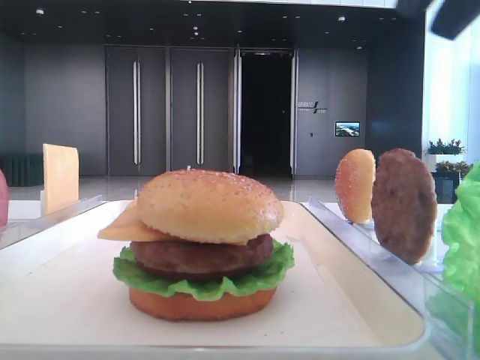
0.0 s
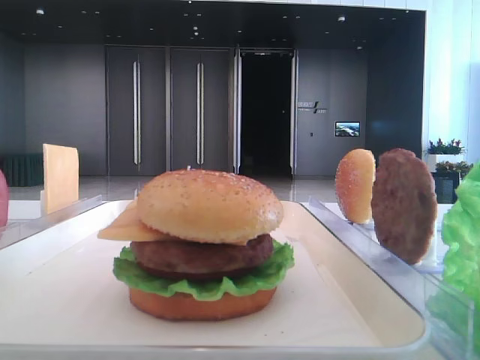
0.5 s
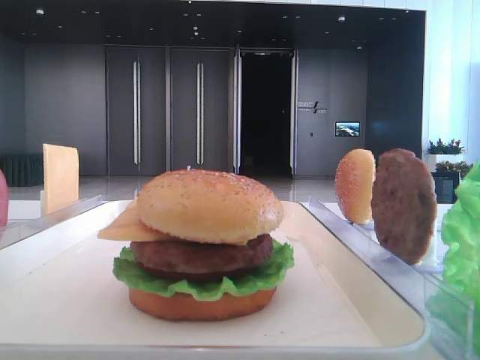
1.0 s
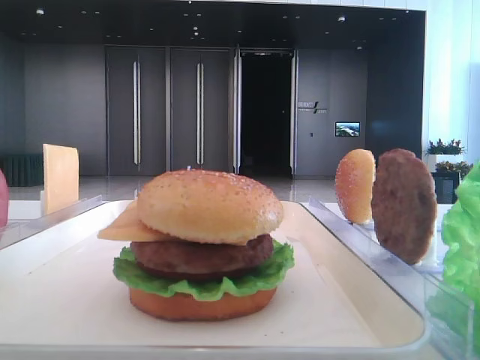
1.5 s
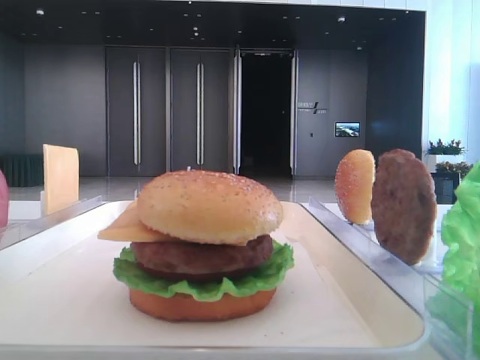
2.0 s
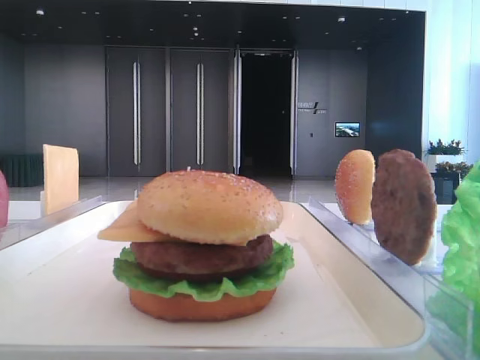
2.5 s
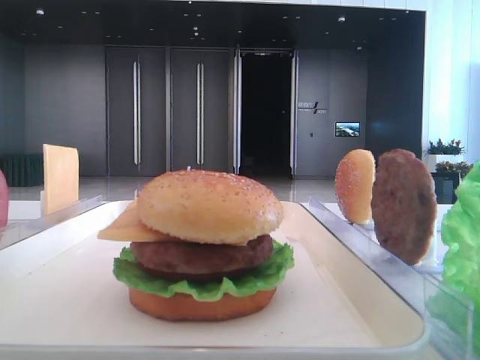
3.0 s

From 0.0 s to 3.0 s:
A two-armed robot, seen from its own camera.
From 0.0 s to 1.5 s: The right gripper moves to the right, backward and upward, about 15 cm.

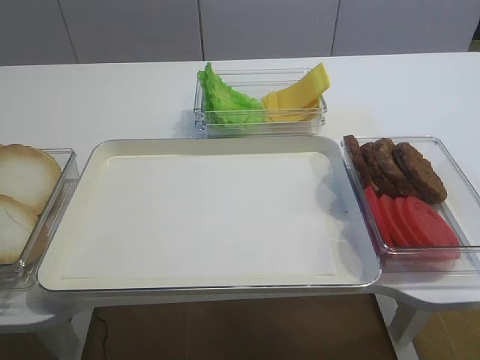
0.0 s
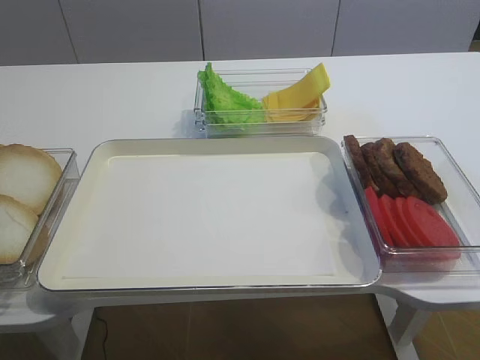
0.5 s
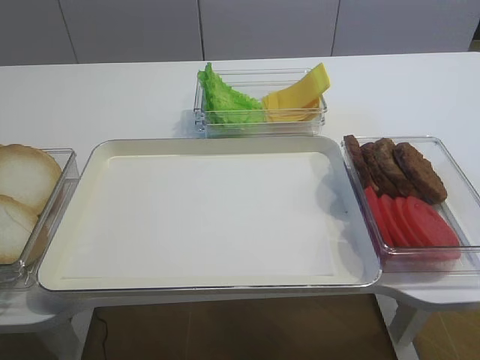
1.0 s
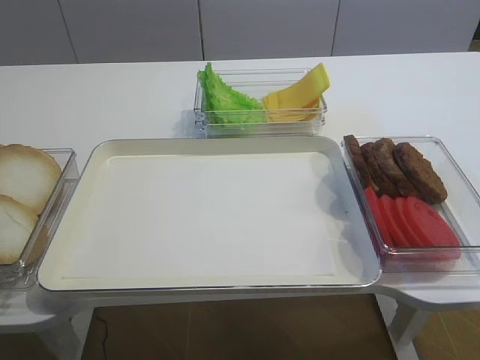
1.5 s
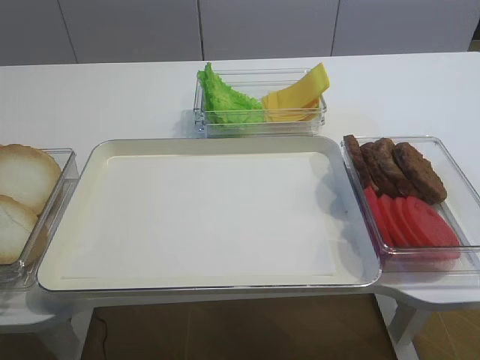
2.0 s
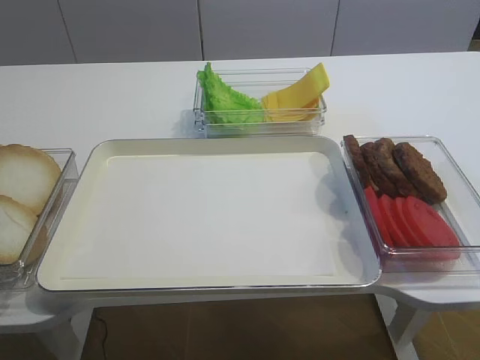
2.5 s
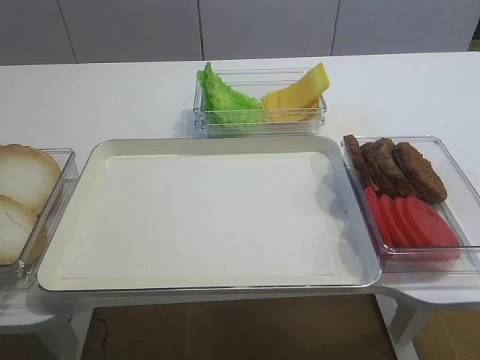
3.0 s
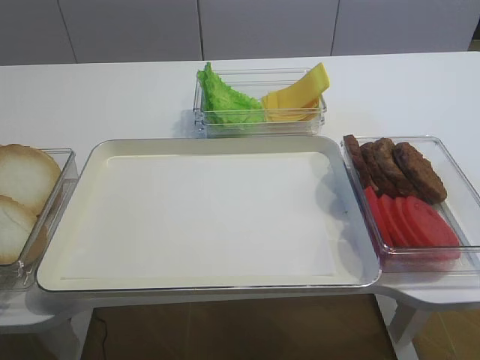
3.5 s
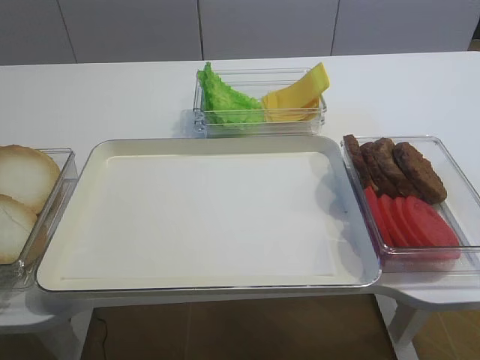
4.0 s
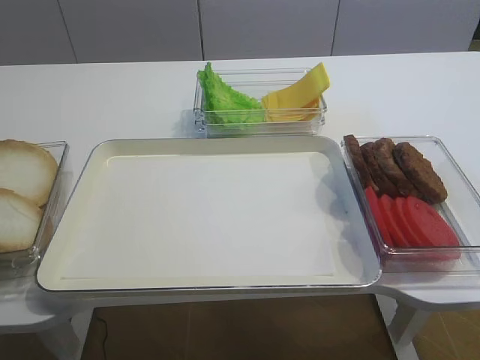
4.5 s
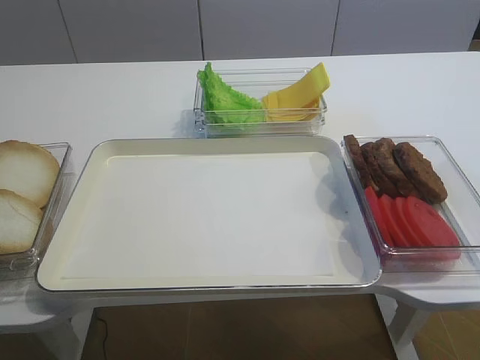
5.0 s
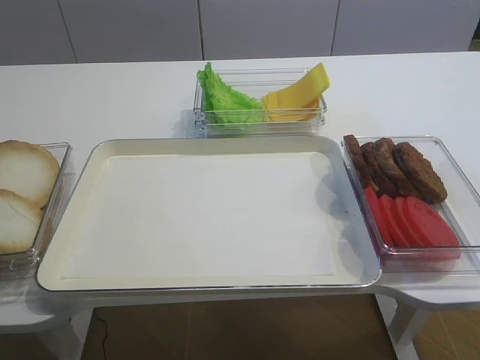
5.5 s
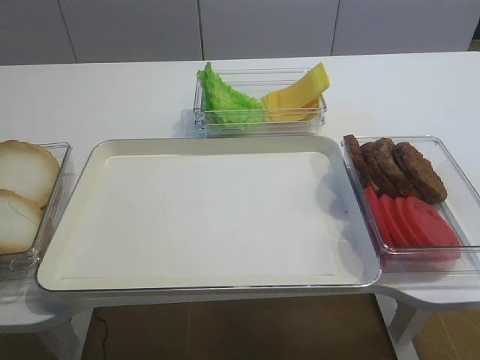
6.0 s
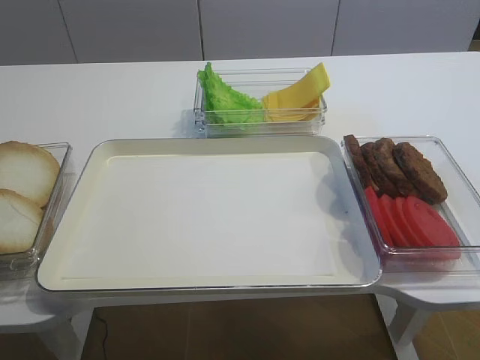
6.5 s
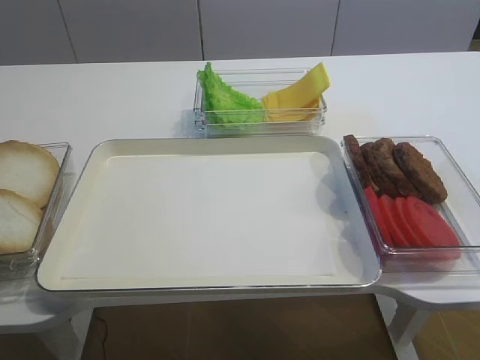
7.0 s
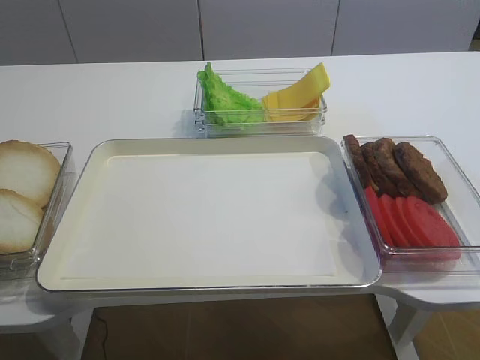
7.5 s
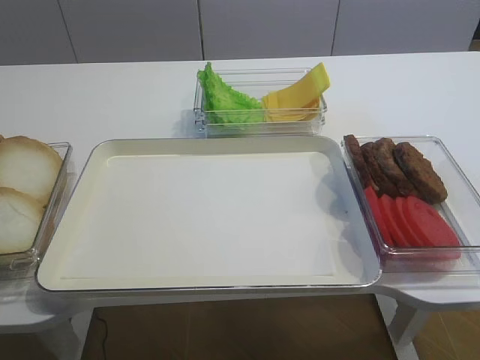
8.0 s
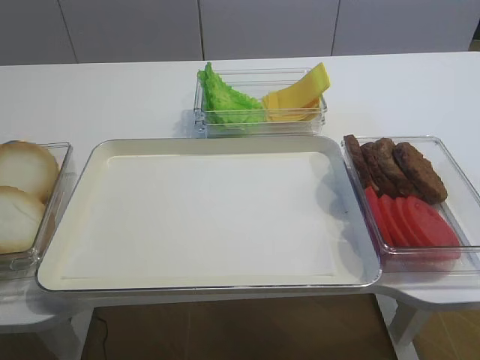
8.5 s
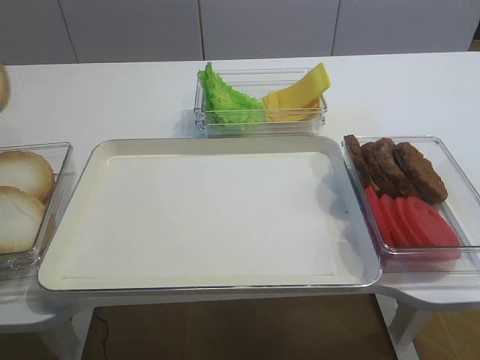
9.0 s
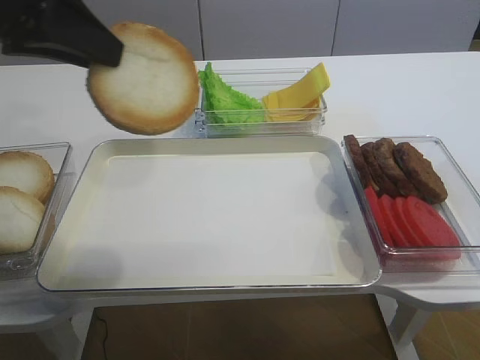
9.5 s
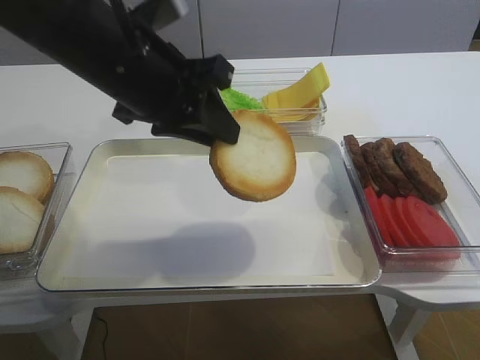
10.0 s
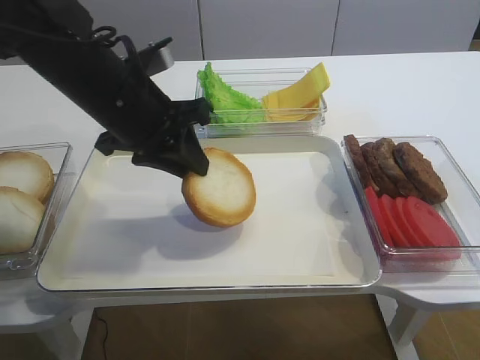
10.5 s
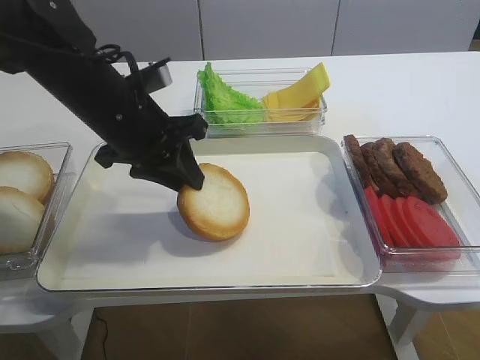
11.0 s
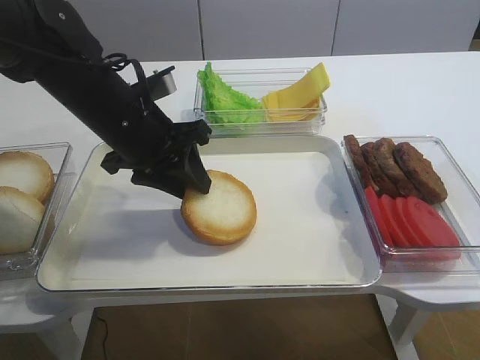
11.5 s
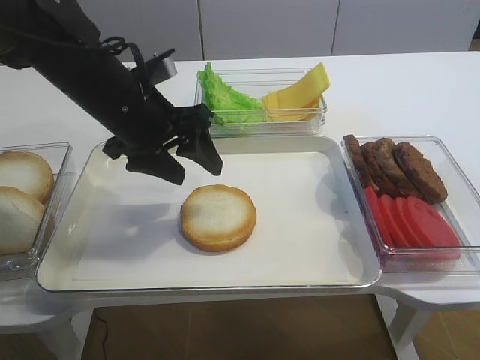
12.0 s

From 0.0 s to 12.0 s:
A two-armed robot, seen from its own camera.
Step, from 0.0 s to 9.0 s: Pick up the bread slice with the left gripper.
Step, from 9.5 s to 12.0 s: Place the bread slice on the tray with the left gripper.
From 4.0 s to 6.0 s: The grippers stay close to where they were, moving slightly.
From 8.0 s to 10.0 s: The left gripper is displaced to the right by some 25 cm.
From 10.0 s to 12.0 s: The left gripper shifts approximately 5 cm downward, and opens up.

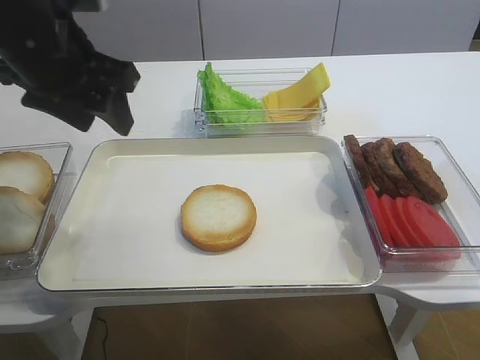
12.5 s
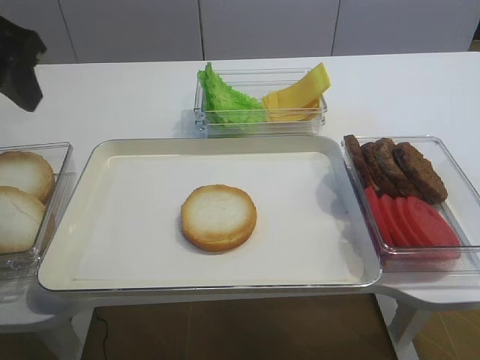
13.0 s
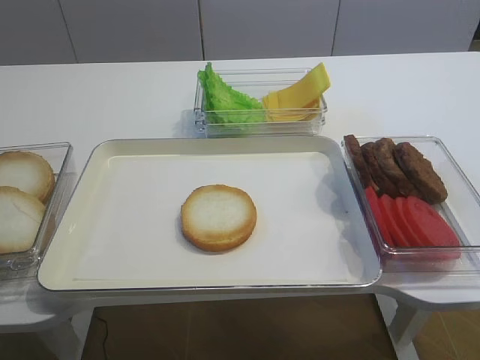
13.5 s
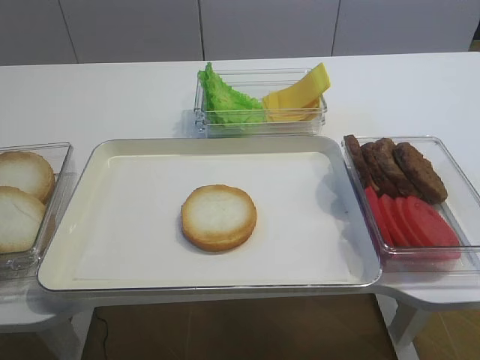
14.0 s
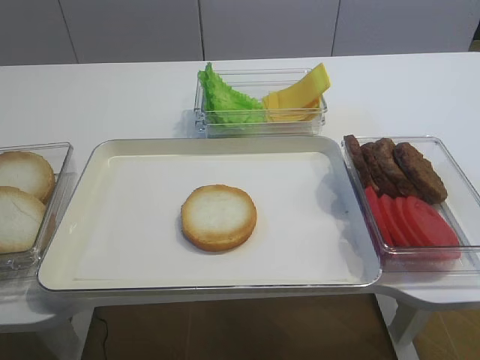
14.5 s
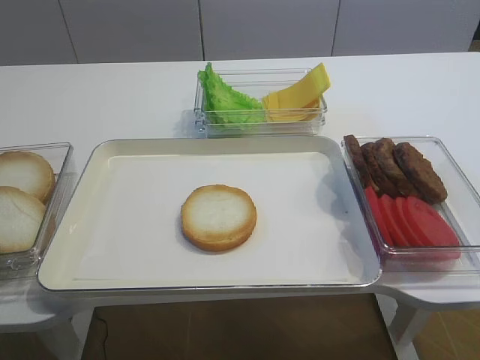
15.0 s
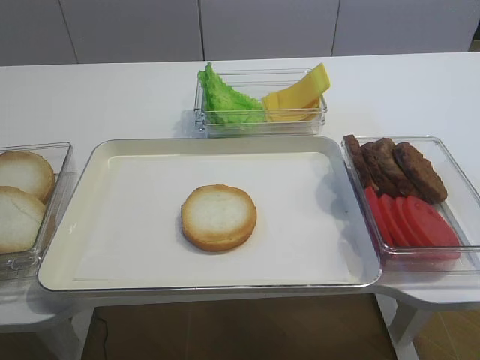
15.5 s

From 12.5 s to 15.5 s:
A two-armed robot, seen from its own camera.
From 12.5 s to 14.0 s: The left gripper goes about 25 cm backward and to the left.
